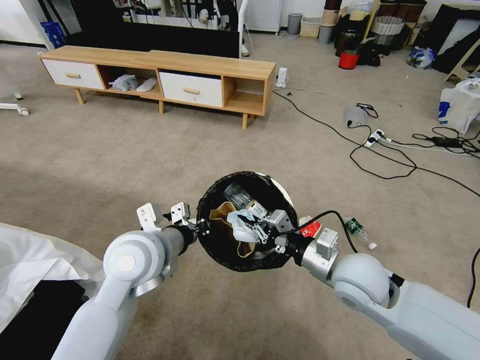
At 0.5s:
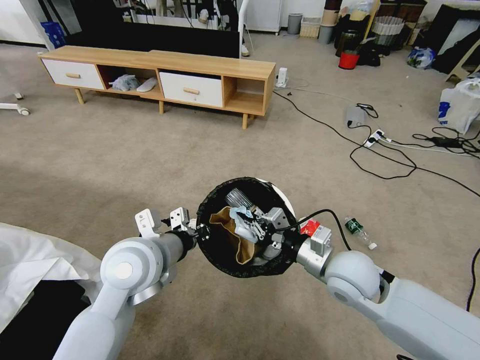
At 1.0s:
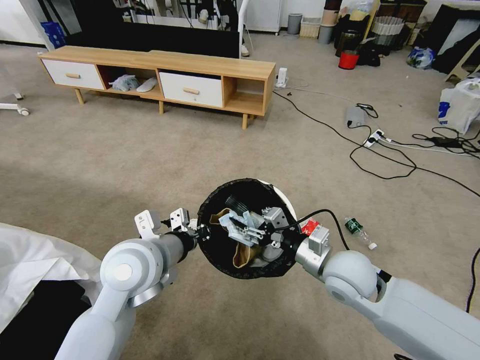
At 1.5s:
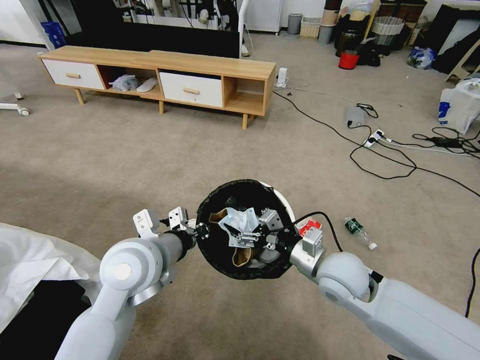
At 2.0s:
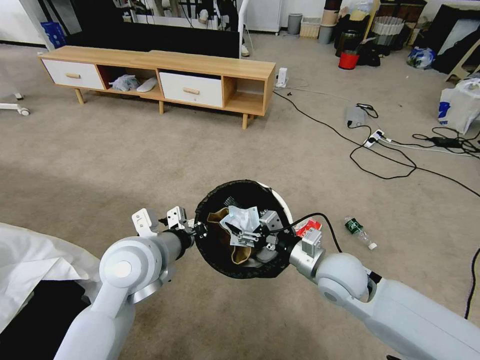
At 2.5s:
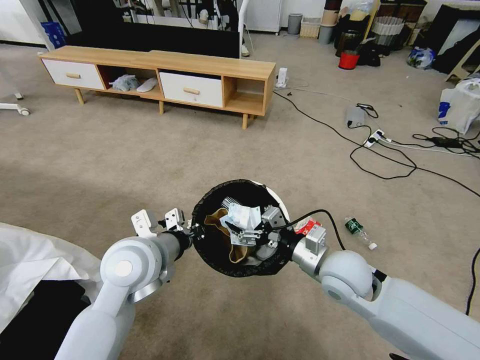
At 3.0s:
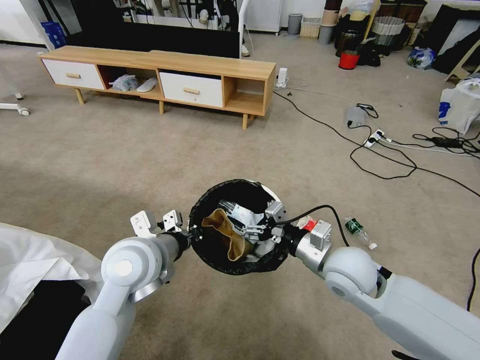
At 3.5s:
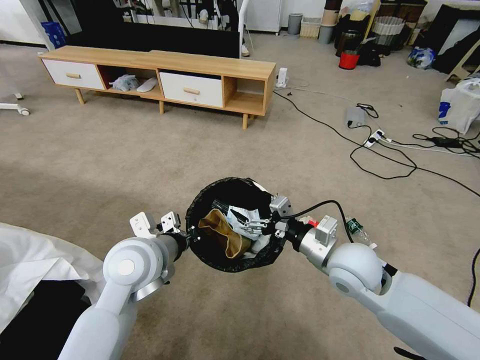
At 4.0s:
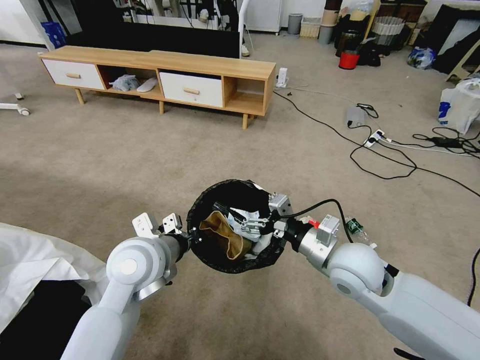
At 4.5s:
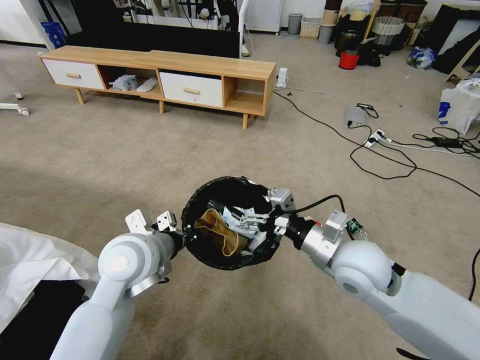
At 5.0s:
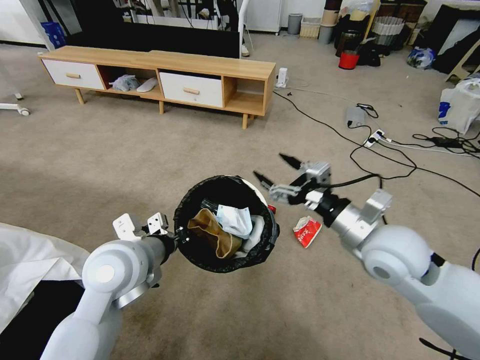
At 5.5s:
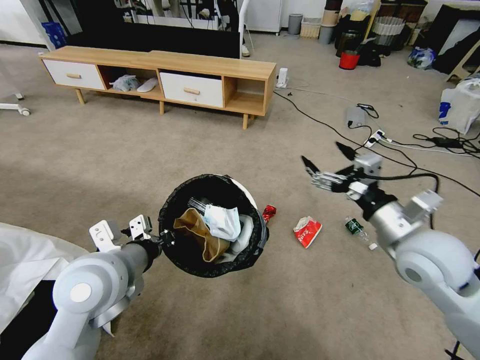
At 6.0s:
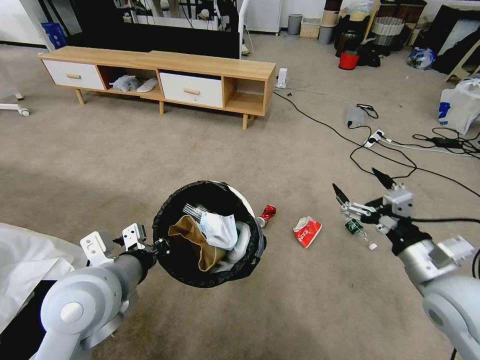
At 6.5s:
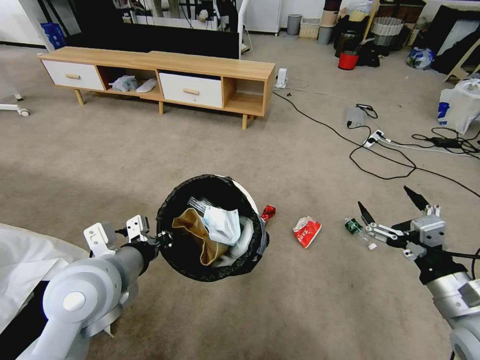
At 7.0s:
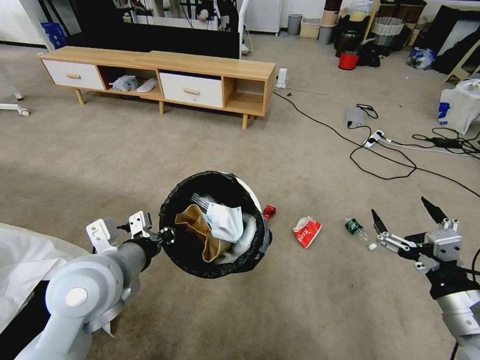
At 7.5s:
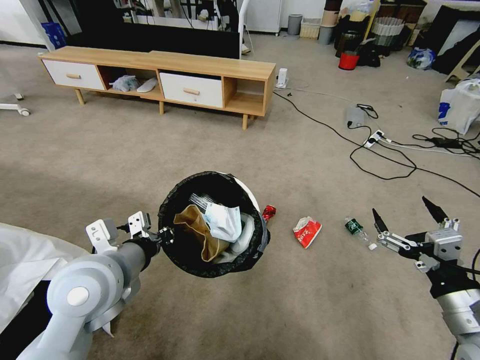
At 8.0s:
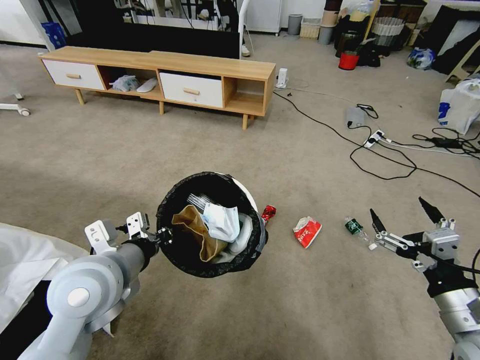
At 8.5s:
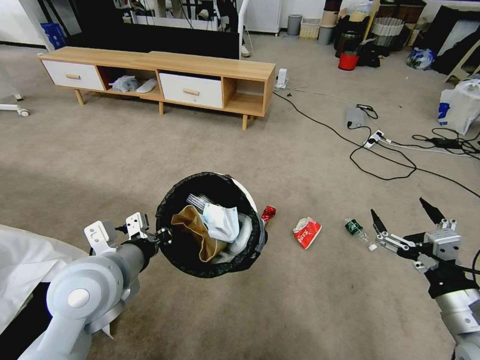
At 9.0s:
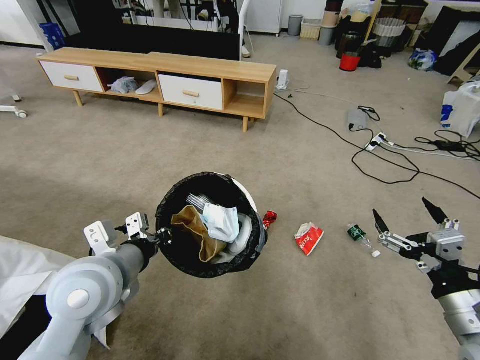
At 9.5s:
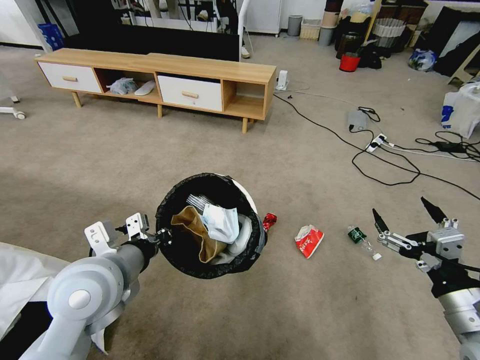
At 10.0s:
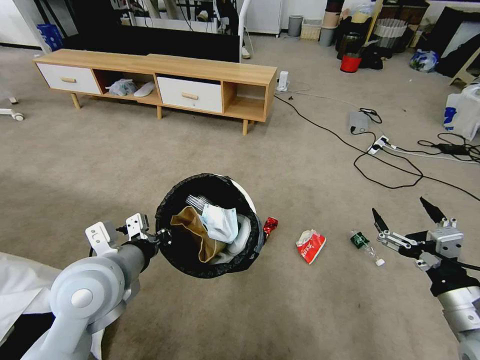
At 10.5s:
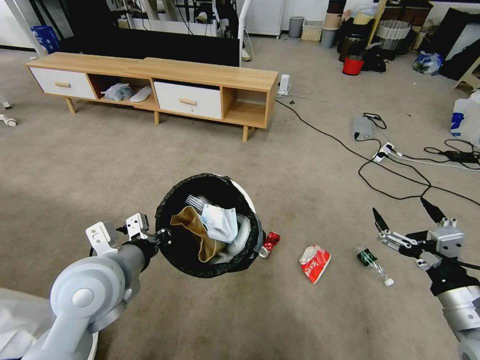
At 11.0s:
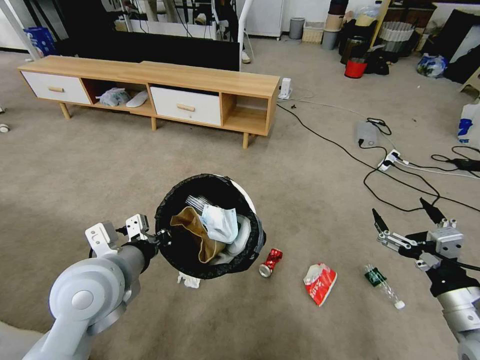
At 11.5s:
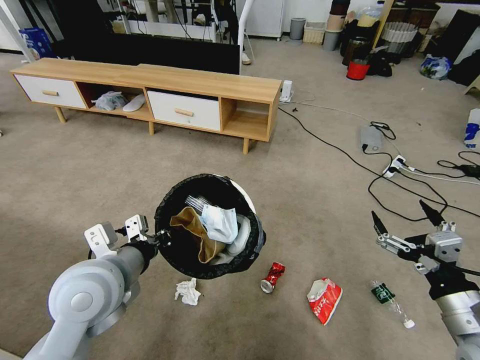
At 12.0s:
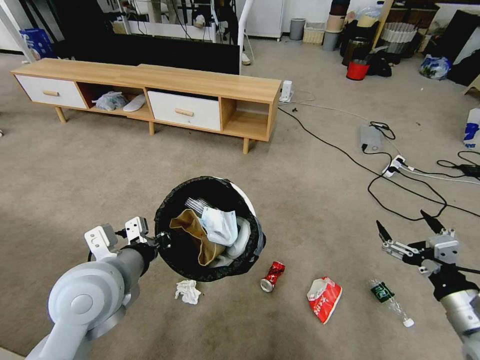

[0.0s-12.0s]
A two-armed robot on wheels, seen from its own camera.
Task of the whole recording: Pick up the trash bin and place the garbage on the floor into it.
0.0s to 2.0s: The right gripper opens its fingers.
2.0s to 4.0s: There are only small adjustments of the grippers.
4.0s to 6.0s: The left gripper goes about 5 cm backward, while the right gripper is displaced to the right and backward by some 15 cm.
6.0s to 8.0s: The right gripper goes about 10 cm backward.

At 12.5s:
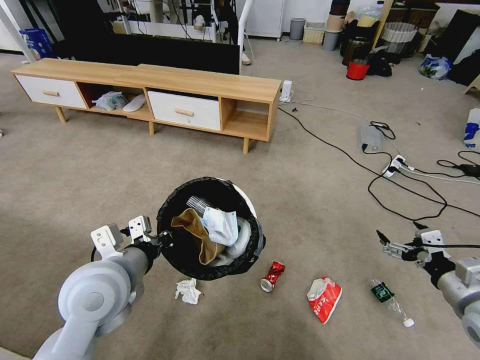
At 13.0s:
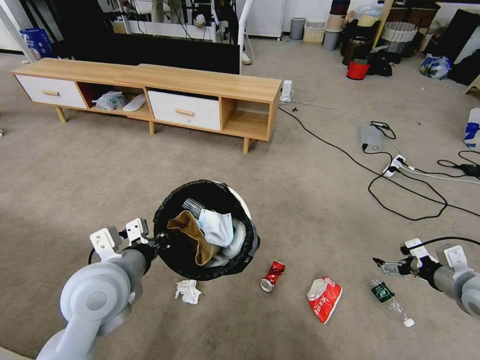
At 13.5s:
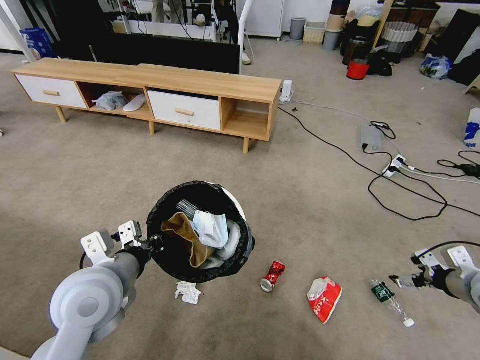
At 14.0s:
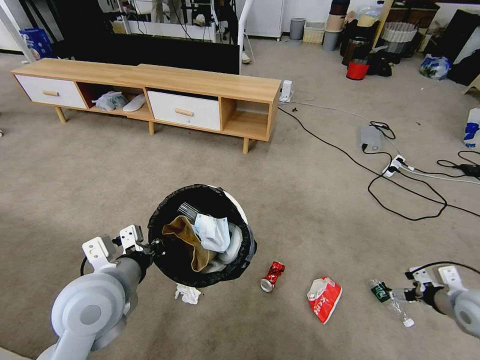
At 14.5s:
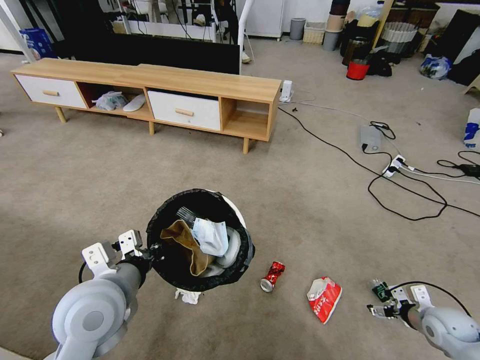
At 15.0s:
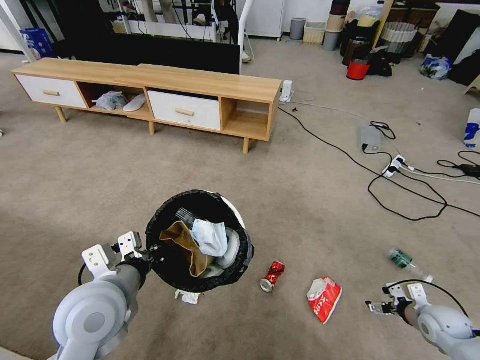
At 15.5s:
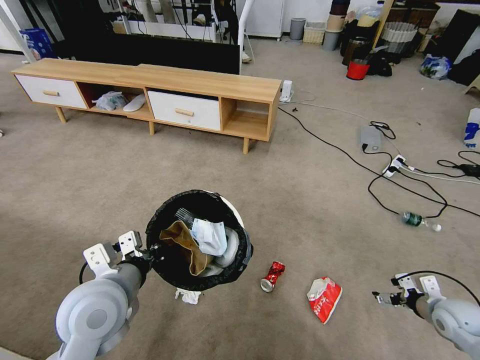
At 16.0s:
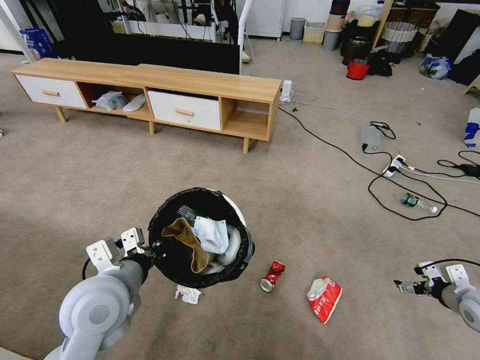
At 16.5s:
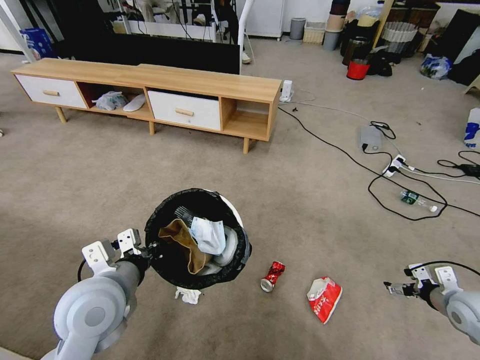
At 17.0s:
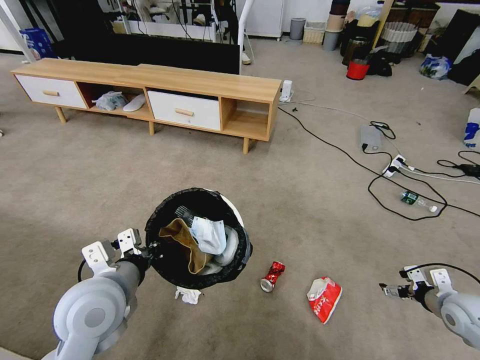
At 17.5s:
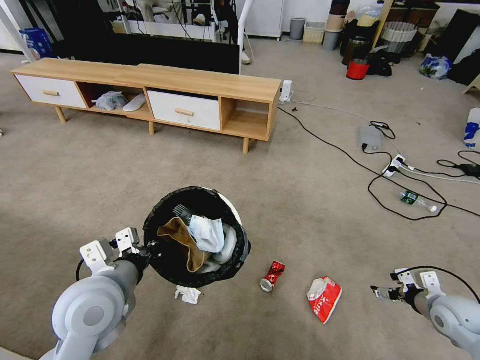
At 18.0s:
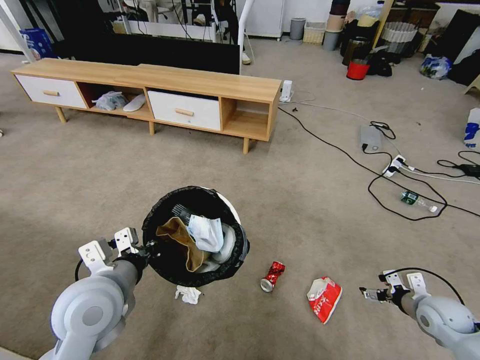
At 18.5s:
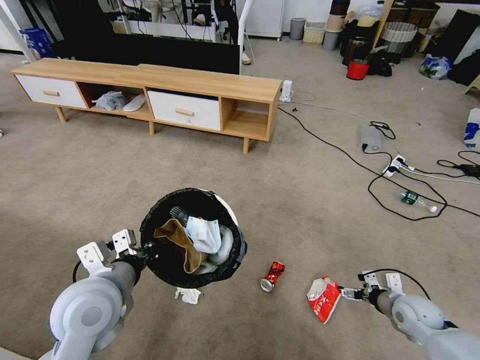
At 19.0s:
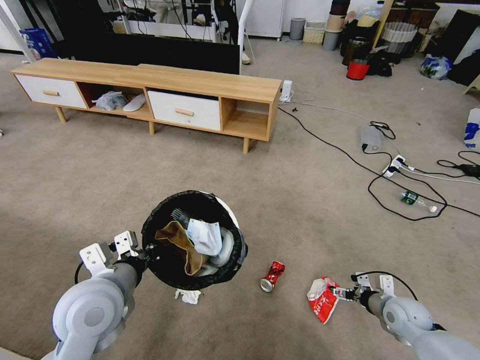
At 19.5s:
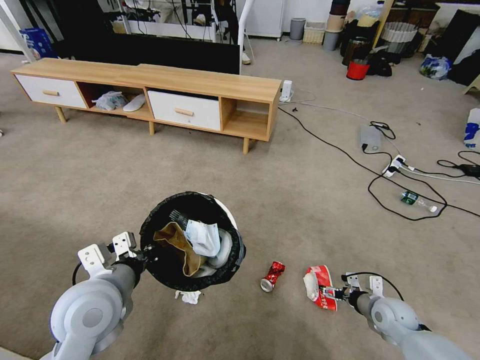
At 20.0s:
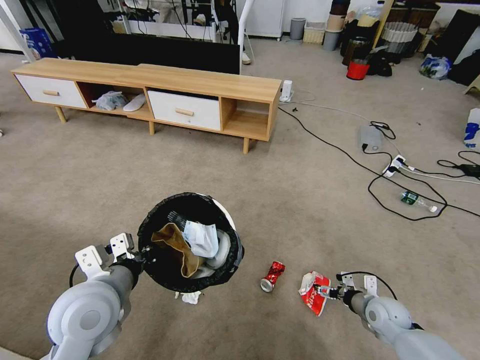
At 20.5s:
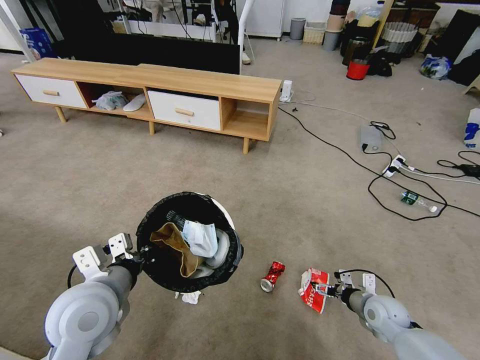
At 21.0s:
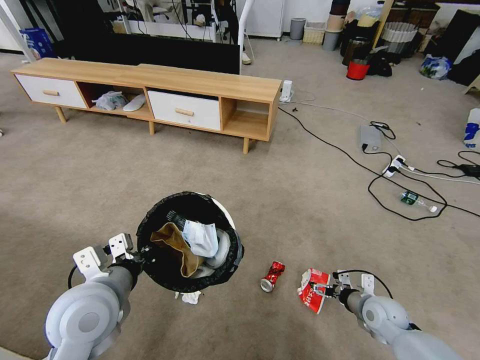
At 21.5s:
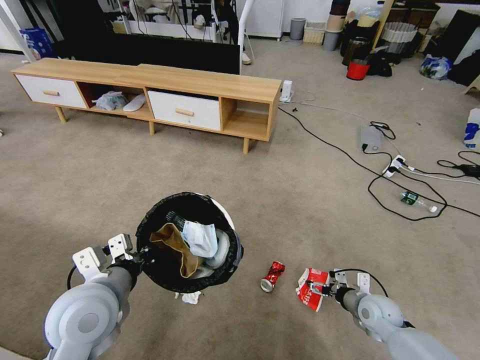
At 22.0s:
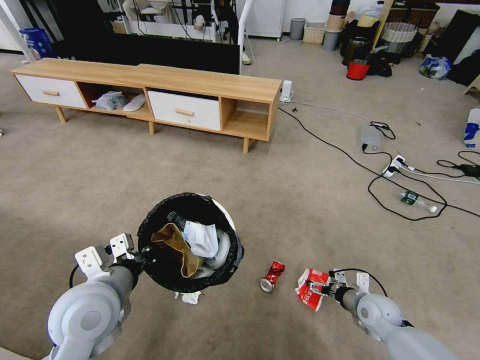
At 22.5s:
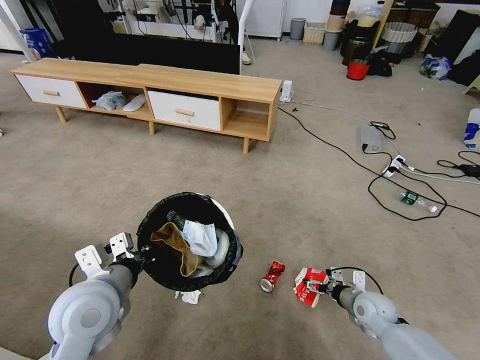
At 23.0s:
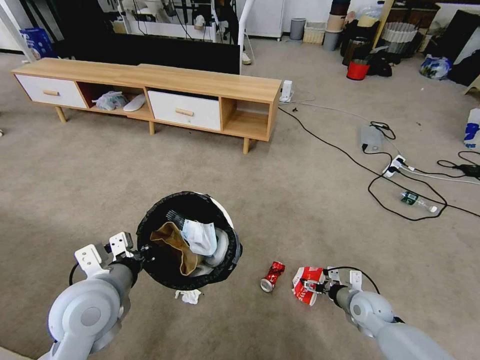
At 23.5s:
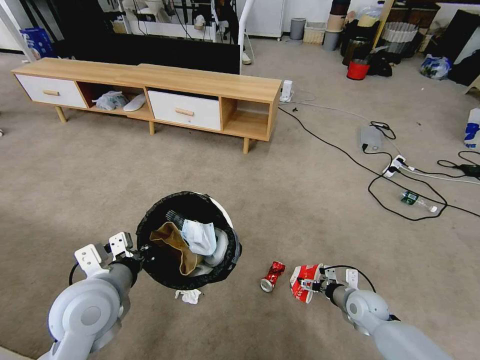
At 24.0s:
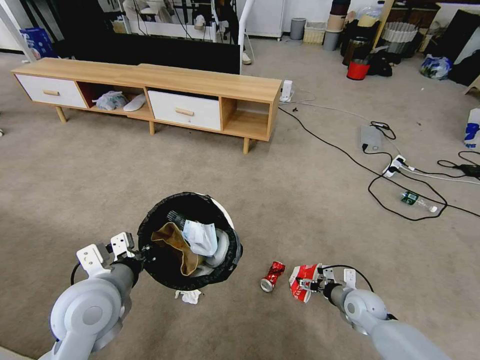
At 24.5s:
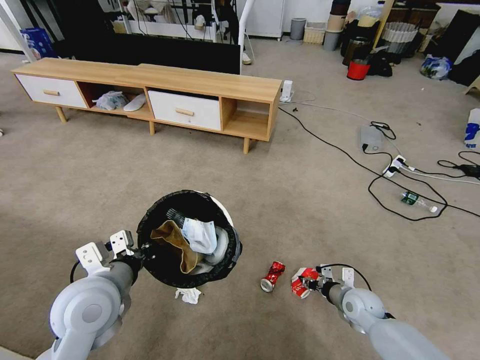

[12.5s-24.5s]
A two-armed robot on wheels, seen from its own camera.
Task of the whole recording: Pick up the trash bin and place the garbage on the floor into it.
12.5s to 14.5s: The right gripper is displaced downward by some 15 cm.
14.5s to 16.5s: The right gripper shifts roughly 5 cm upward.
16.5s to 18.5s: The right gripper shifts some 10 cm to the left and downward.
18.5s to 20.5s: The right gripper goes approximately 10 cm to the left.
20.5s to 22.5s: The grippers make only small movements.
22.5s to 24.5s: The right gripper closes up.

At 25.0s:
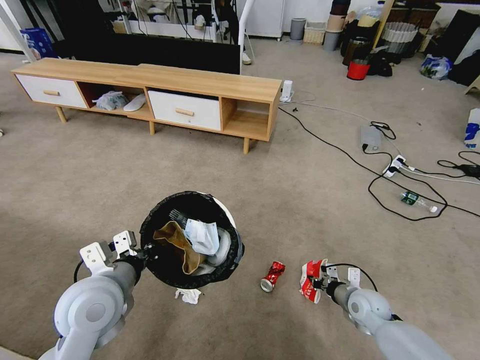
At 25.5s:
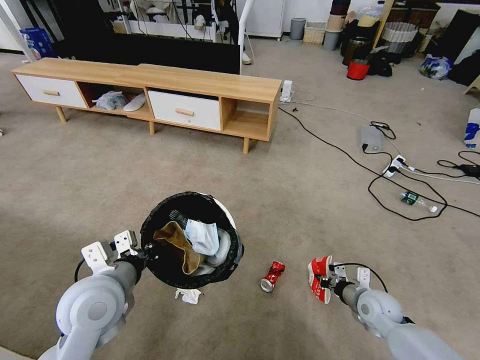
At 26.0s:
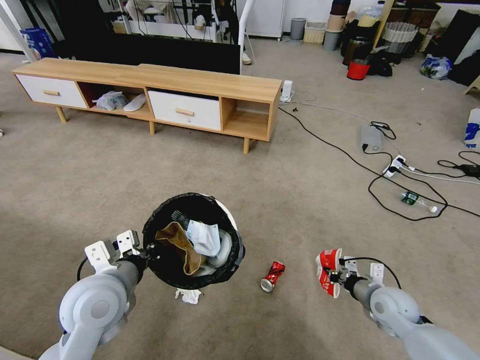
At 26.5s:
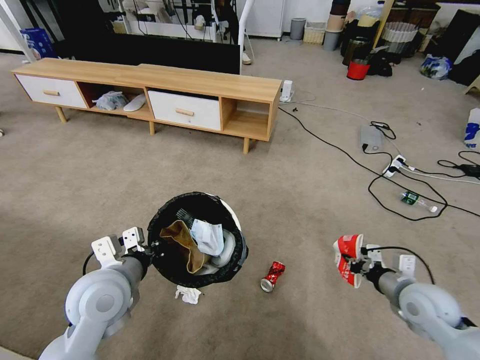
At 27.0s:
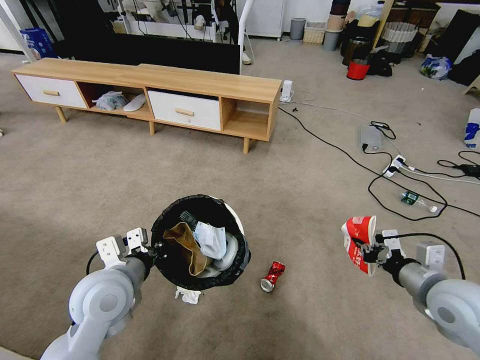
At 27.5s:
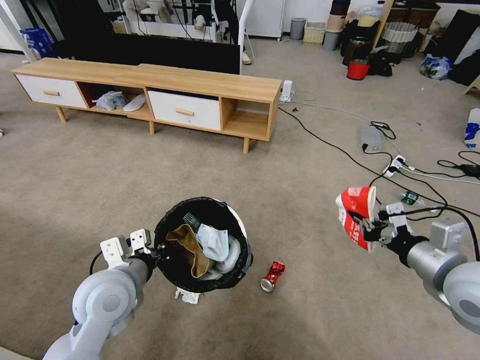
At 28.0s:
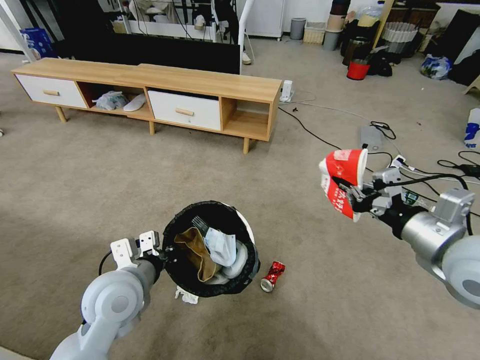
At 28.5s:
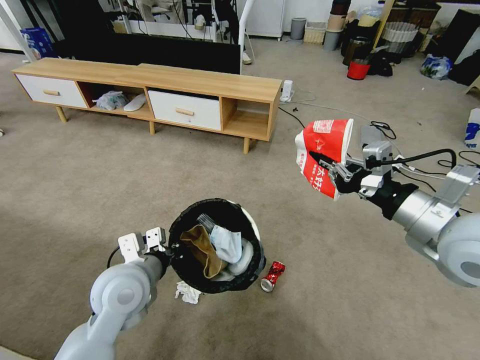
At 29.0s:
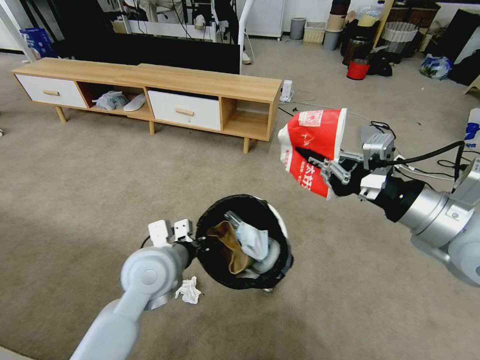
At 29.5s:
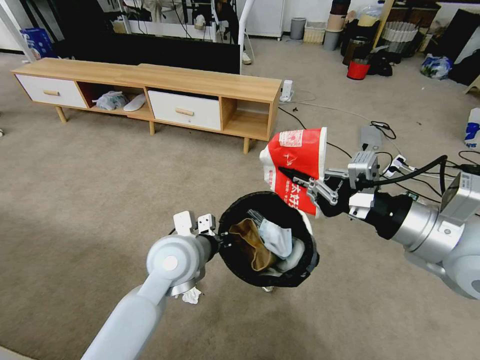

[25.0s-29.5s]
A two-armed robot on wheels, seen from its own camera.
Task of the whole recording: Pick up the trash bin and place the garbage on the floor into it.
25.0s to 27.0s: The right gripper heads upward, covering approximately 20 cm.
27.0s to 29.5s: The left gripper goes approximately 15 cm to the right and forward, while the right gripper is displaced upward and to the left by about 20 cm.
